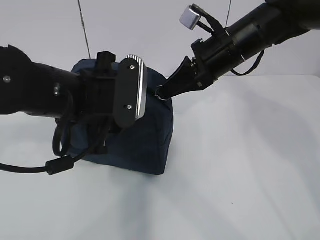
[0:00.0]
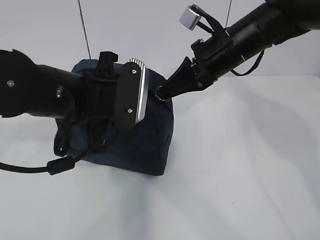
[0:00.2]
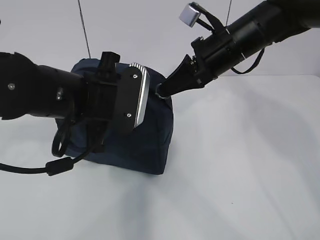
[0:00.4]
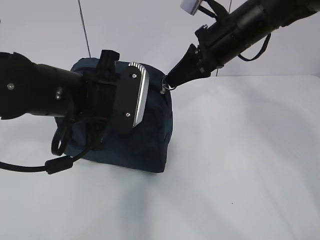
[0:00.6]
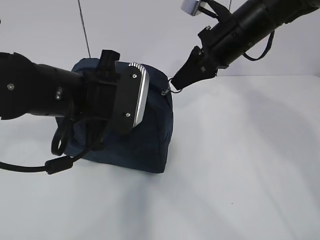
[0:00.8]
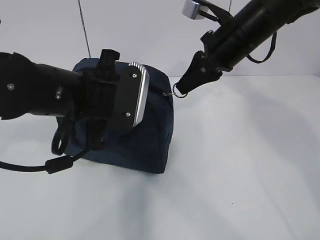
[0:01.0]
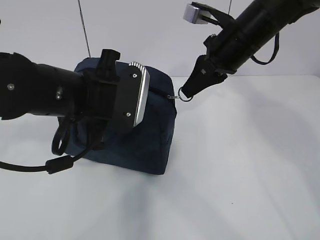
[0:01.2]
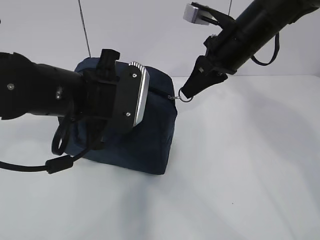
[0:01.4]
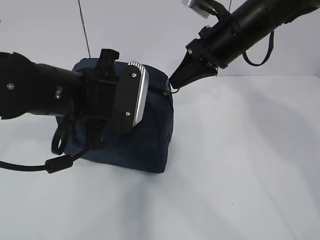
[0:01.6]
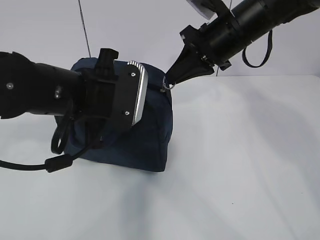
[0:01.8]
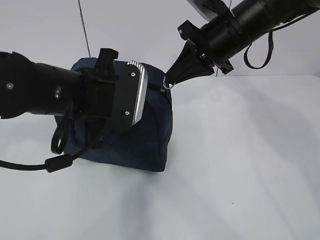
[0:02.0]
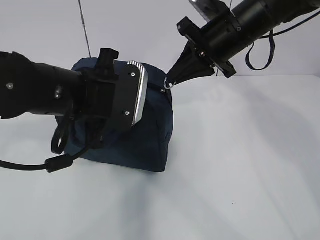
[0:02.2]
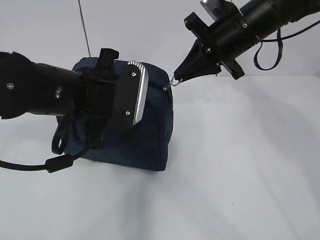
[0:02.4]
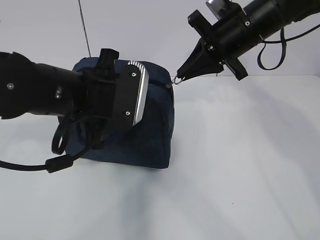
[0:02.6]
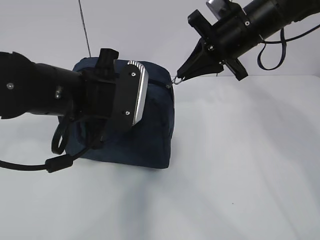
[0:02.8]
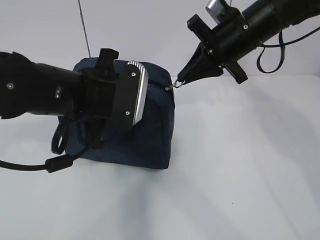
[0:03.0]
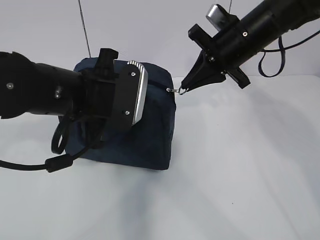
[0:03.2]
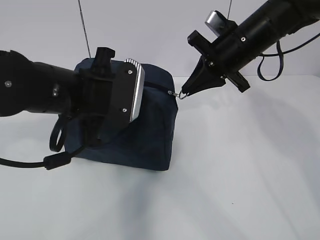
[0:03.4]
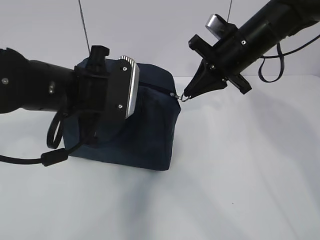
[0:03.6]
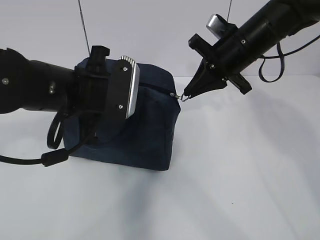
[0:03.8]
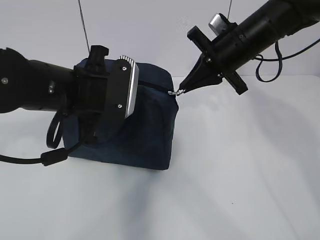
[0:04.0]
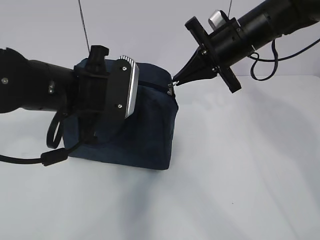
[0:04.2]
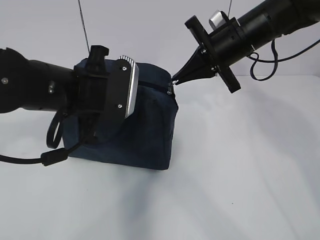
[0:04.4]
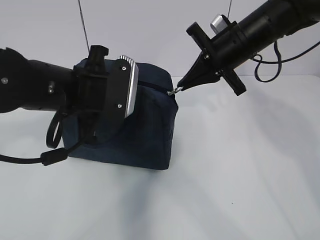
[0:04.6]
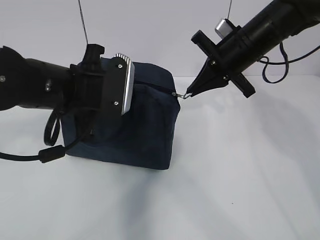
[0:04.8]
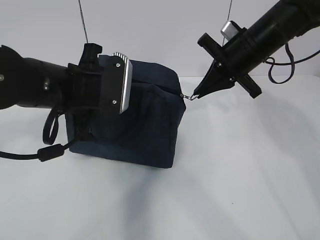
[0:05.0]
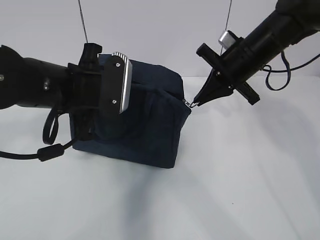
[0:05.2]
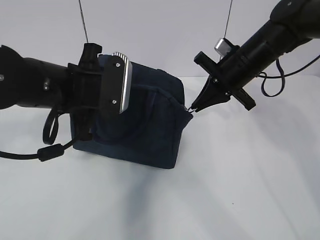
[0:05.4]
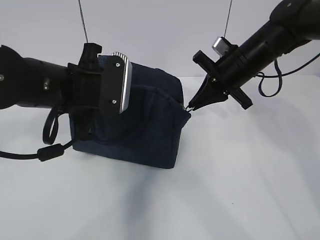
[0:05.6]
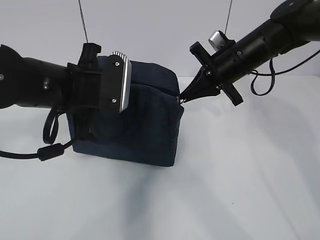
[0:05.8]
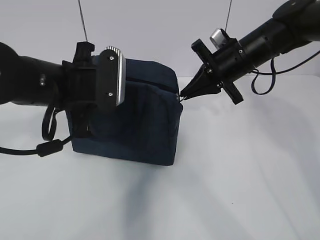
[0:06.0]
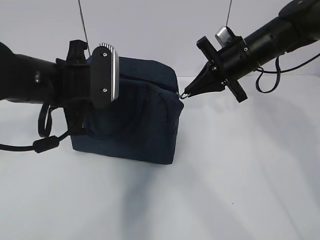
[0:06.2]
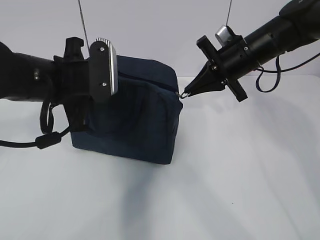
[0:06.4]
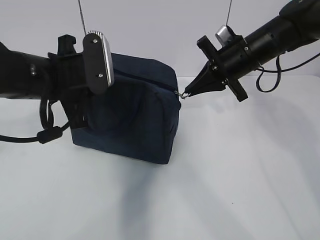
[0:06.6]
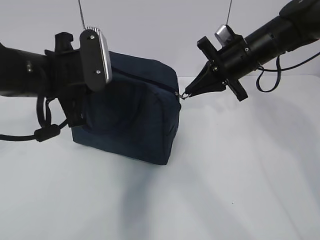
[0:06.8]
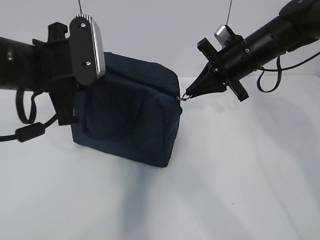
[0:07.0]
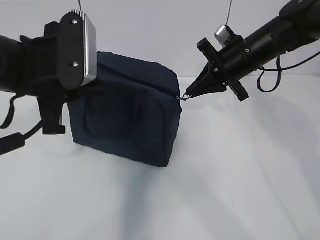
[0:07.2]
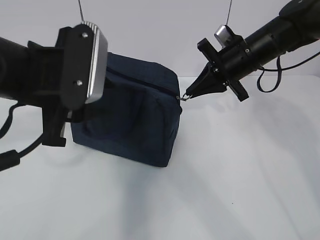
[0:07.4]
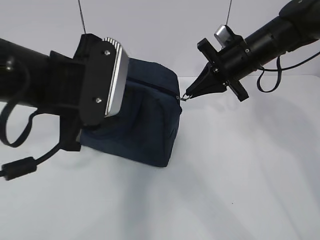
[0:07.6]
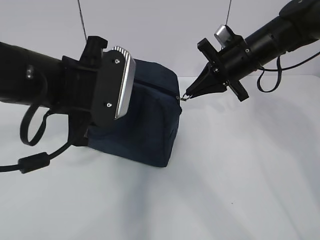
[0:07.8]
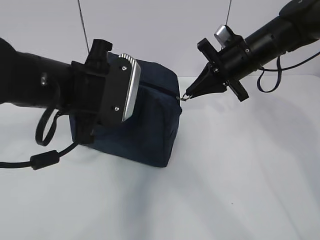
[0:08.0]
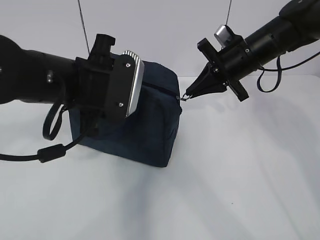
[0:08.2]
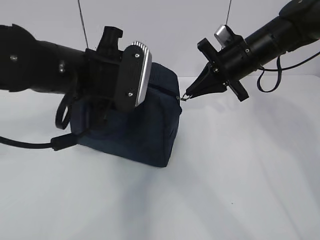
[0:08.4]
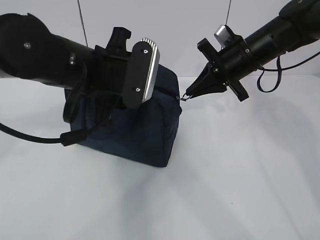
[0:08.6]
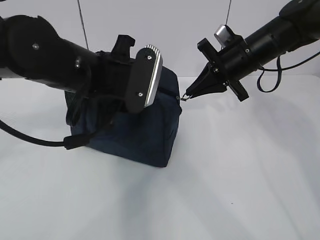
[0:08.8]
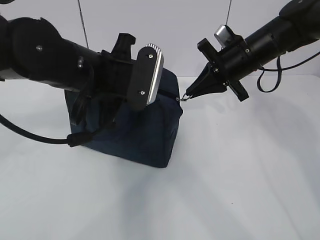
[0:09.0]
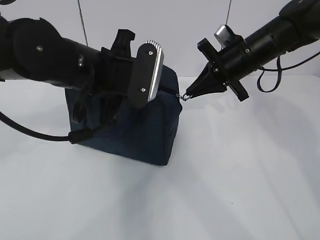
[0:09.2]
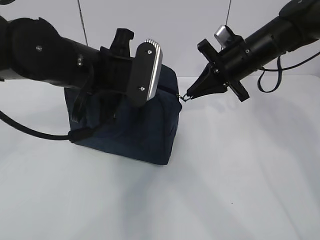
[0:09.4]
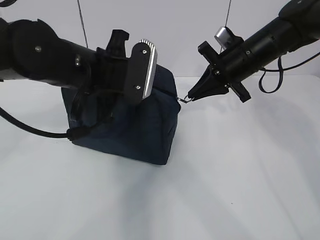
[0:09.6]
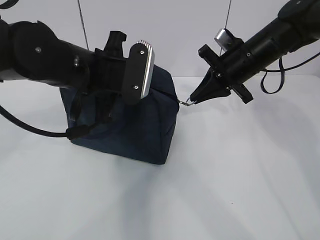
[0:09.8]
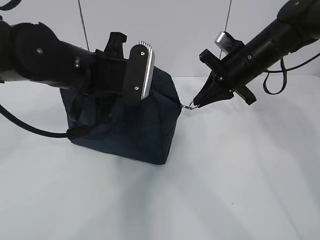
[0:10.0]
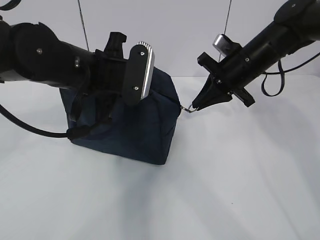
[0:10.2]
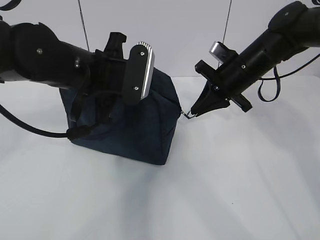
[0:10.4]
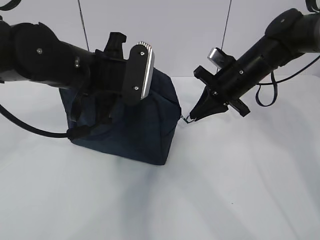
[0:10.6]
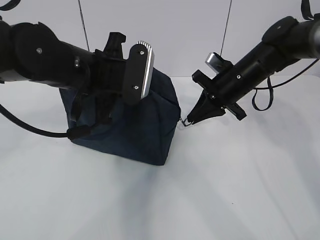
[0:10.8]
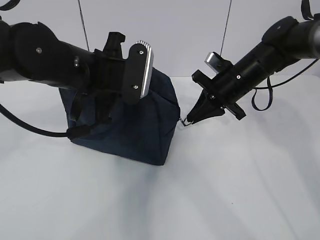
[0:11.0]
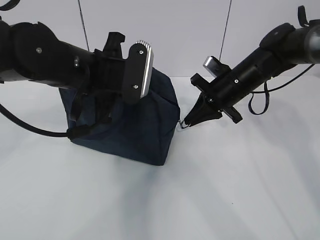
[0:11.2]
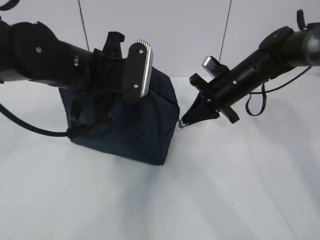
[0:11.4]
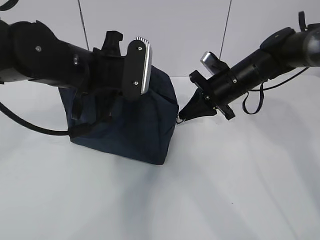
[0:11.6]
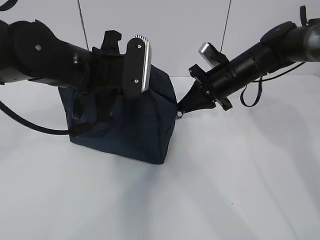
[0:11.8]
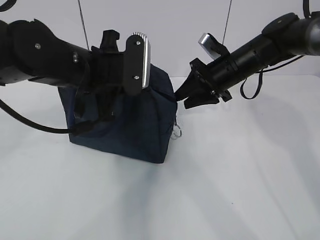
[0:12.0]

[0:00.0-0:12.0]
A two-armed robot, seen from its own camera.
0:00.0 to 0:01.6: The left gripper closes up.
0:03.0 to 0:04.4: The grippers stay close to where they were, moving slightly.
0:04.4 to 0:06.0: The grippers stay close to where they were, moving slightly.
0:06.0 to 0:07.6: The left gripper moves backward, some 5 cm, and opens up.
0:07.6 to 0:09.0: The left gripper goes approximately 5 cm forward, and closes up.
0:09.0 to 0:10.4: The grippers make only small movements.
0:10.4 to 0:12.0: The right gripper opens.

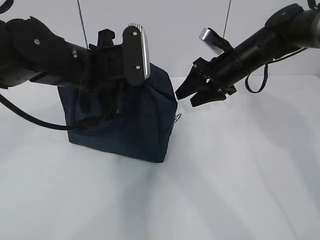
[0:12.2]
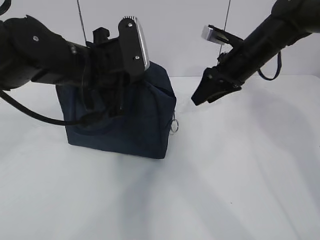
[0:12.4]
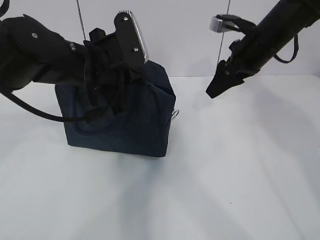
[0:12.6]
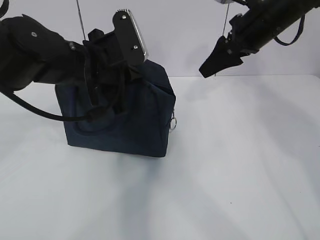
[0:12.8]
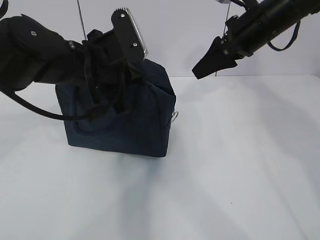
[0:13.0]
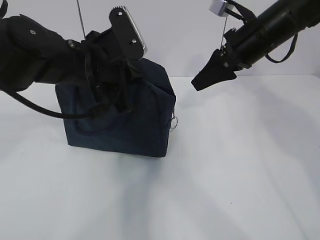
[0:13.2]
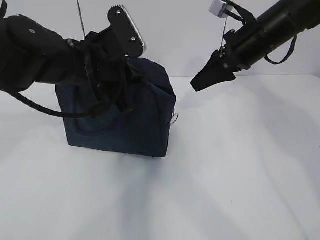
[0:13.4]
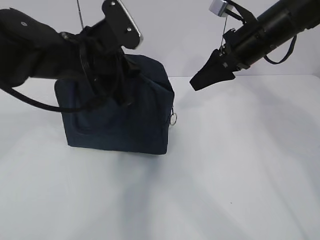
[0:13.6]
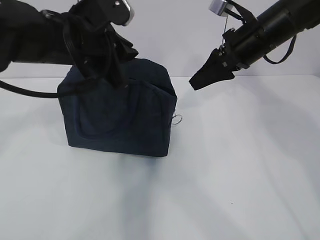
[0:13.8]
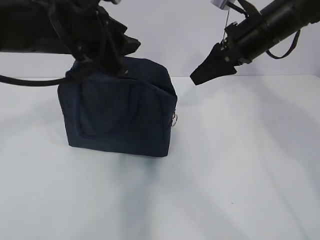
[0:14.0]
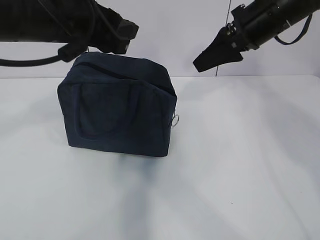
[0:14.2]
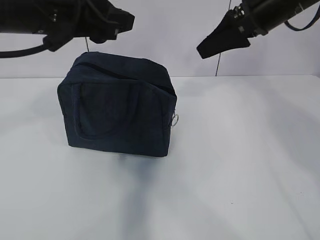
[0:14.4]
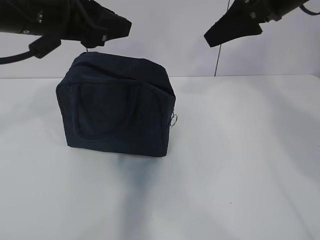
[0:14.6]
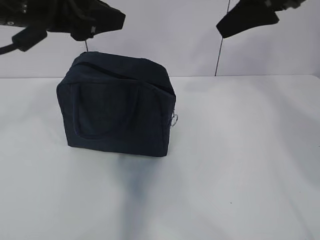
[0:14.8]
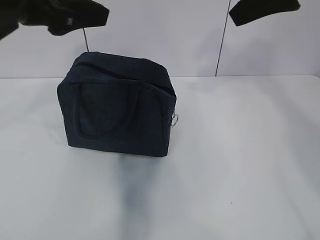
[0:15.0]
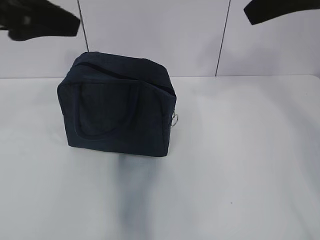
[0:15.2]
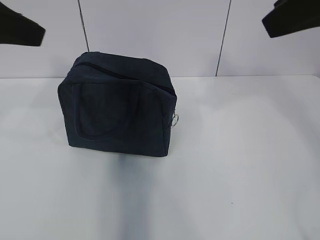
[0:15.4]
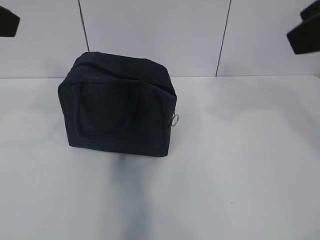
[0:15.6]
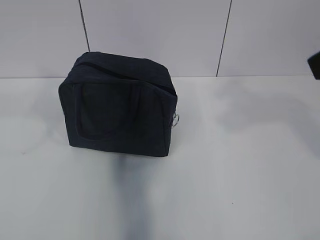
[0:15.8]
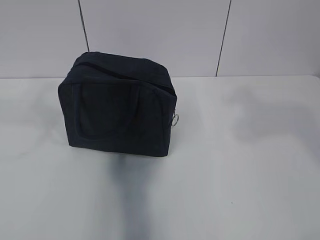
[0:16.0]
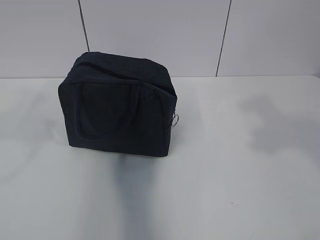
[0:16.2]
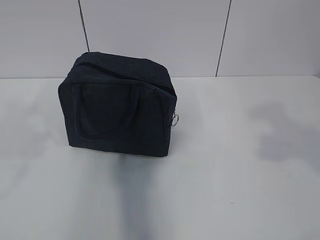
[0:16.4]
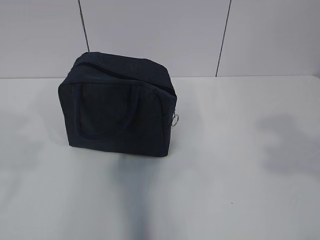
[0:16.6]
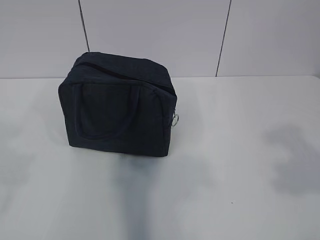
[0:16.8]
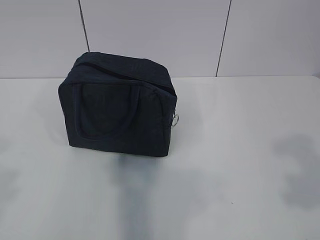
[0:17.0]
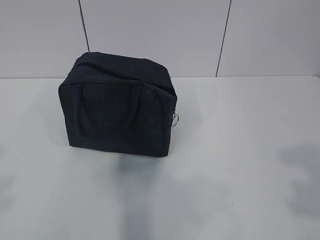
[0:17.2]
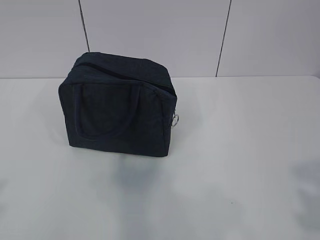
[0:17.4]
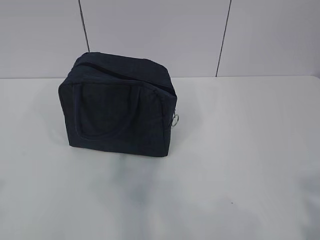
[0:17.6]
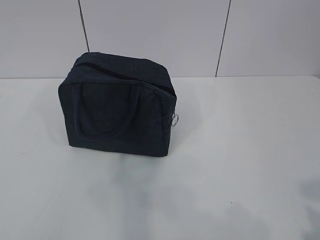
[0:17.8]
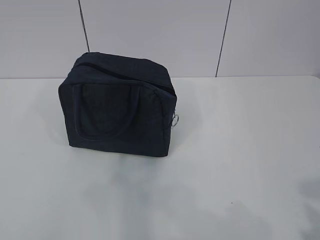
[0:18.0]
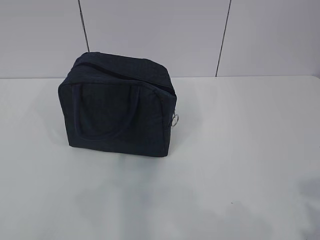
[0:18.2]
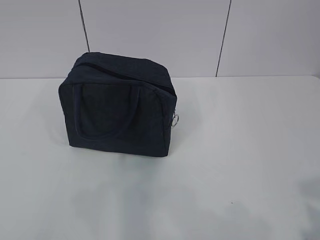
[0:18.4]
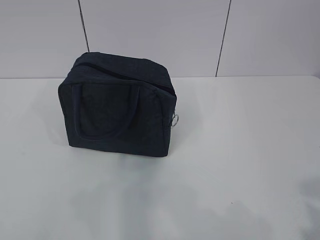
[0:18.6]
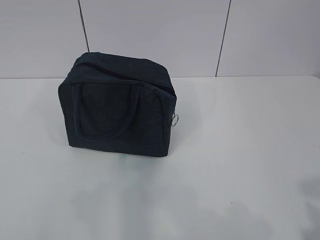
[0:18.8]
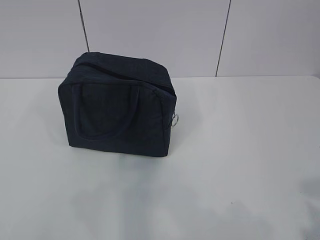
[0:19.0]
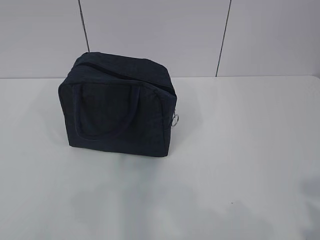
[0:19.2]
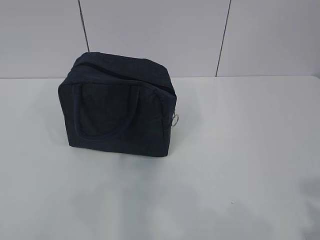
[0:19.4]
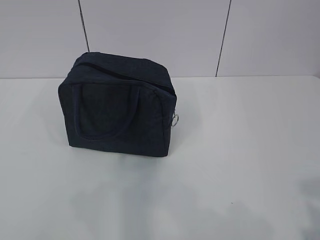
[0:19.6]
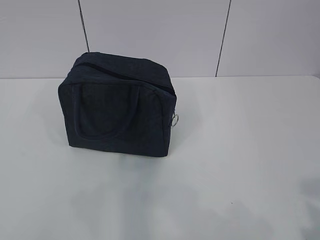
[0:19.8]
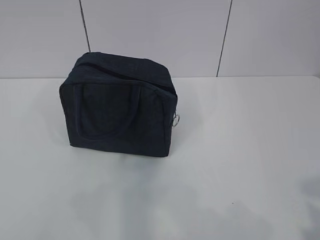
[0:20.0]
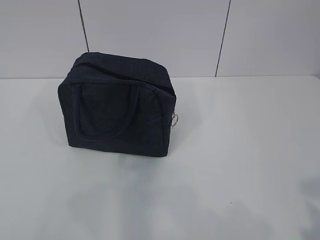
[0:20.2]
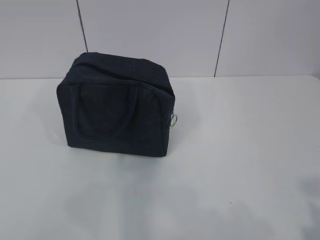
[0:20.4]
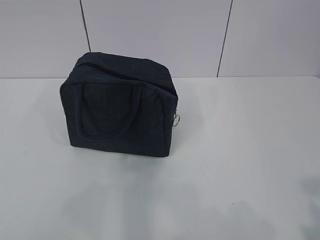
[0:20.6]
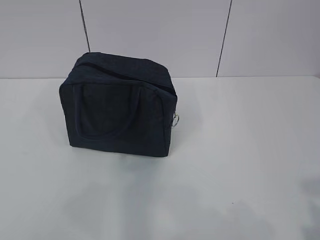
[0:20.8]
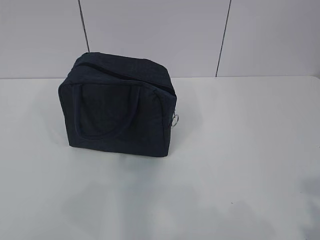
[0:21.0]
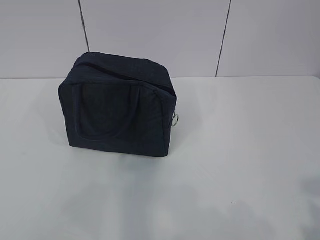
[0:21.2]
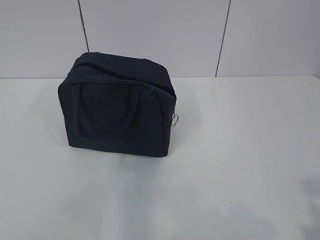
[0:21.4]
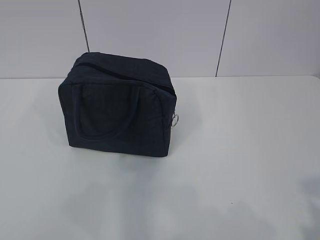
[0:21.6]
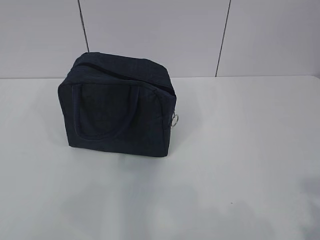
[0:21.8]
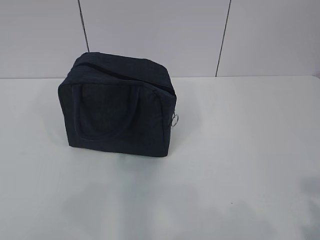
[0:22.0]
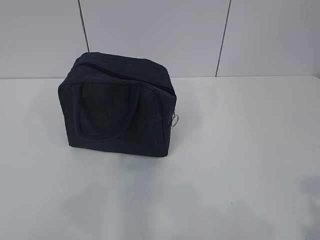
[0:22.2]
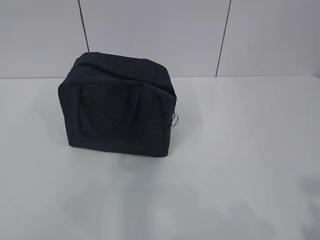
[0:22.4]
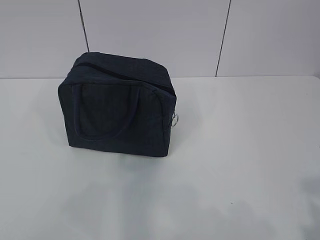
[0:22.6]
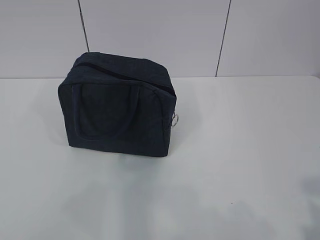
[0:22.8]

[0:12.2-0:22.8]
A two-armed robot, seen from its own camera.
Step, 0:12.2 to 0:15.0: zip up the zipper to close the bag.
0:12.2 to 0:13.8: The right gripper is displaced upward by some 5 cm.
0:13.8 to 0:15.2: The right gripper travels upward and backward by roughly 20 cm. Meanwhile the left gripper travels upward, to the left and backward by about 15 cm, and opens.
0:15.2 to 0:16.8: The right gripper moves backward, approximately 20 cm, while the left gripper is displaced backward and to the left by roughly 20 cm.
0:16.8 to 0:18.2: The right gripper travels downward and backward by roughly 10 cm. The left gripper heads backward and downward, covering approximately 10 cm.
0:18.2 to 0:19.8: Both grippers stay put.
0:21.2 to 0:22.8: Both grippers stay put.
